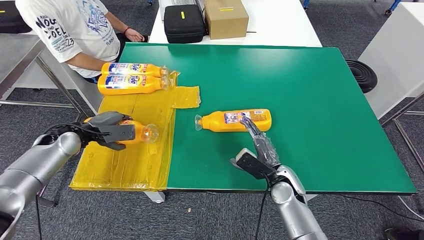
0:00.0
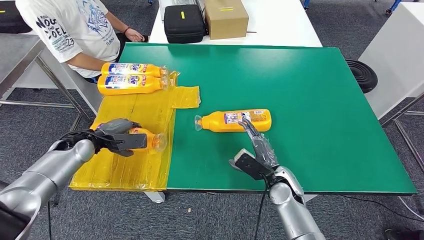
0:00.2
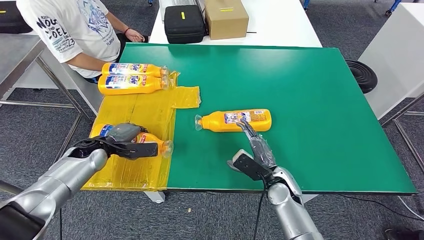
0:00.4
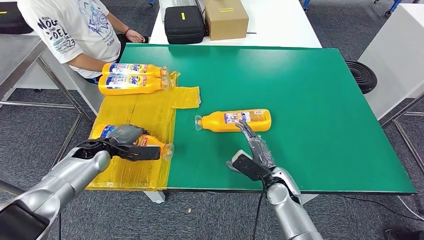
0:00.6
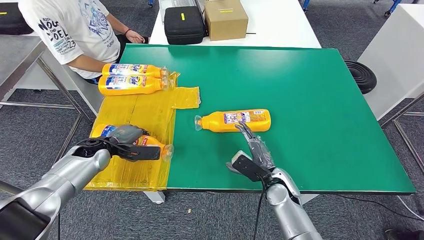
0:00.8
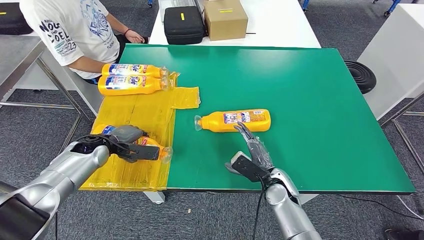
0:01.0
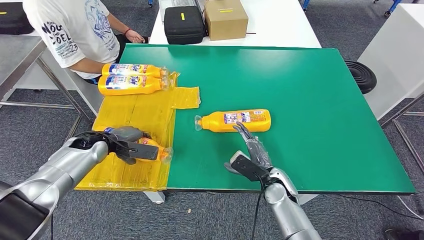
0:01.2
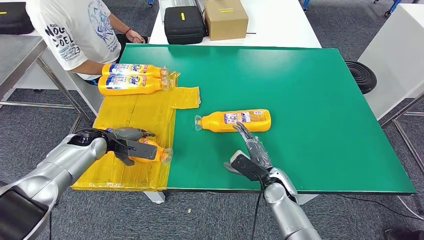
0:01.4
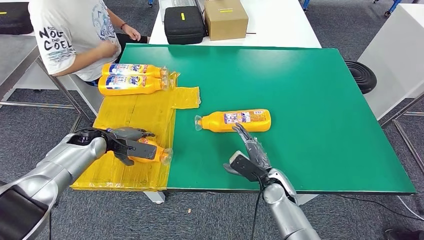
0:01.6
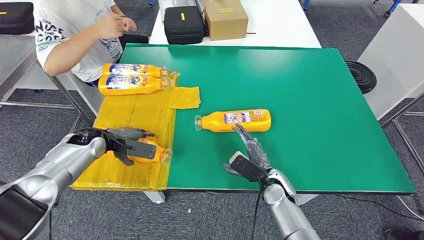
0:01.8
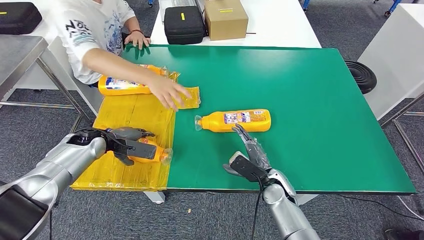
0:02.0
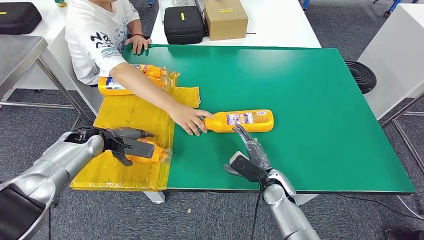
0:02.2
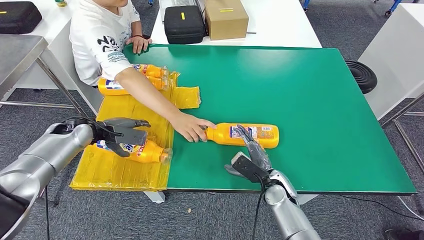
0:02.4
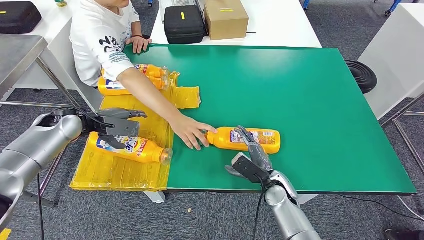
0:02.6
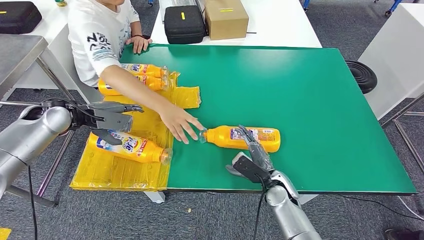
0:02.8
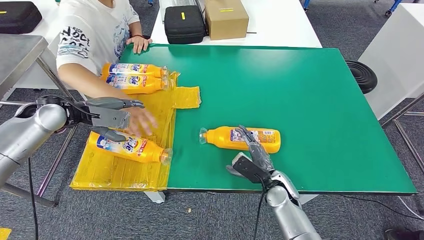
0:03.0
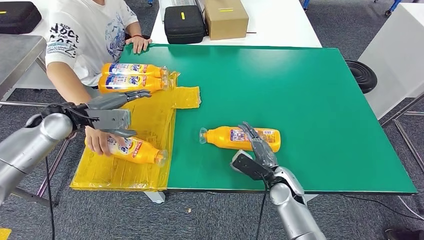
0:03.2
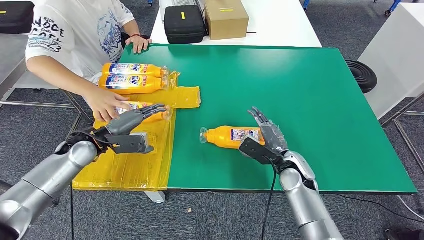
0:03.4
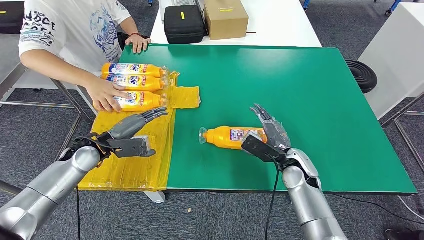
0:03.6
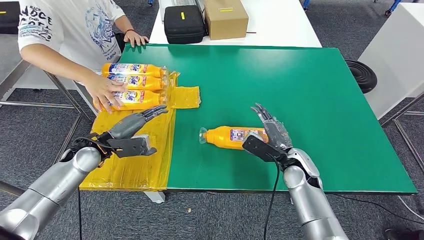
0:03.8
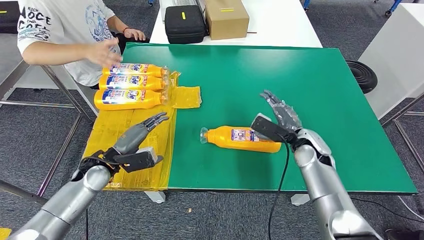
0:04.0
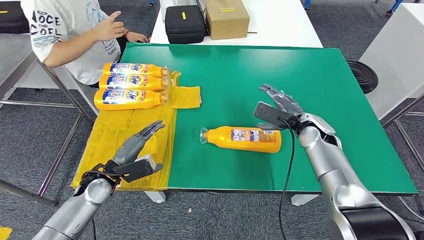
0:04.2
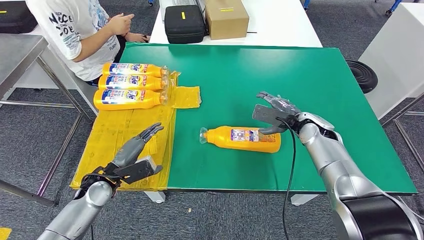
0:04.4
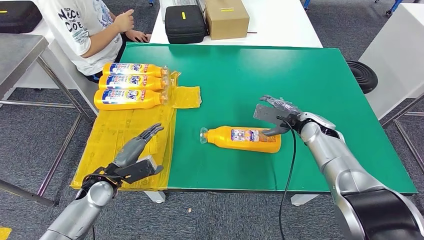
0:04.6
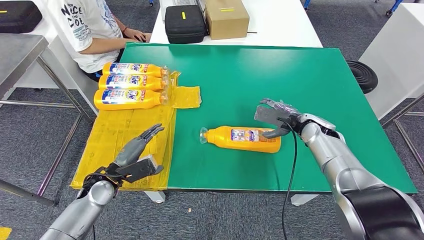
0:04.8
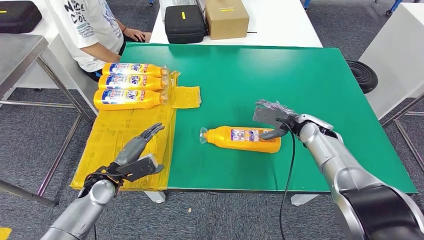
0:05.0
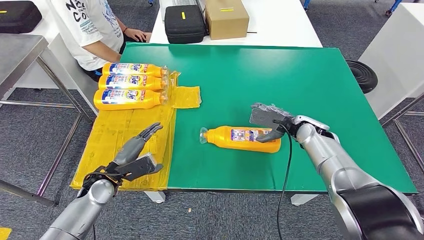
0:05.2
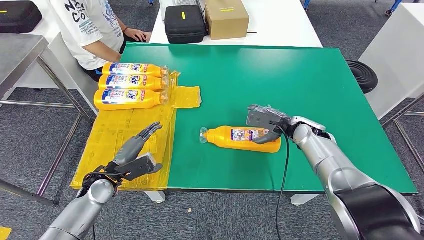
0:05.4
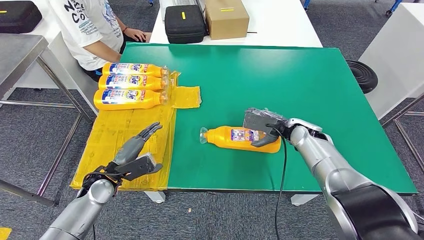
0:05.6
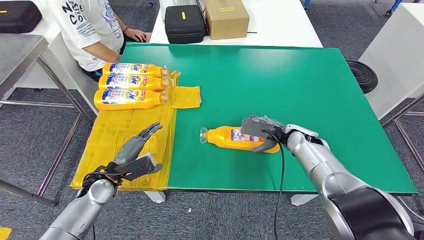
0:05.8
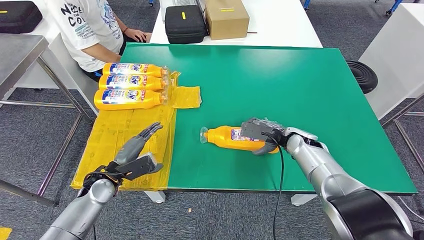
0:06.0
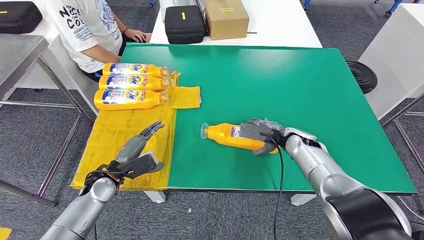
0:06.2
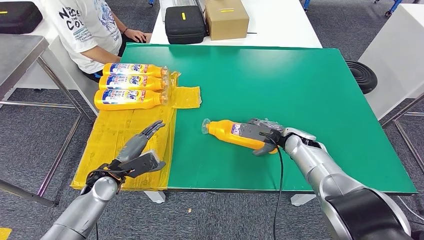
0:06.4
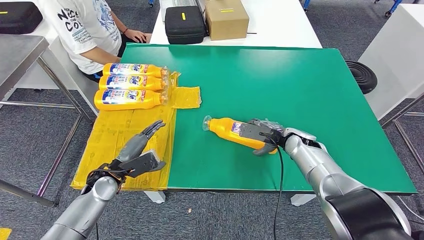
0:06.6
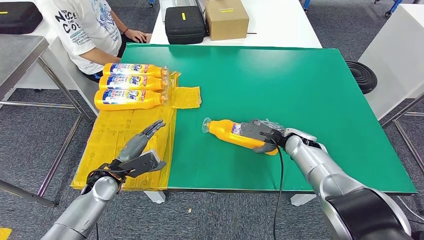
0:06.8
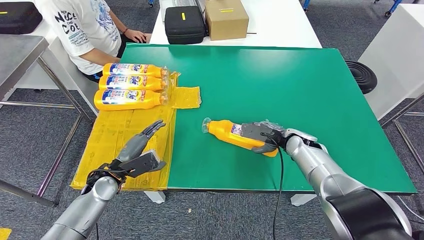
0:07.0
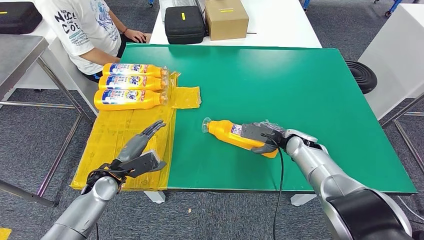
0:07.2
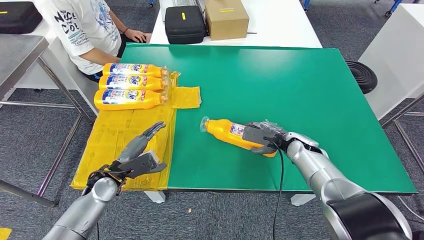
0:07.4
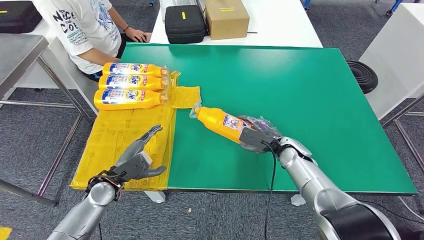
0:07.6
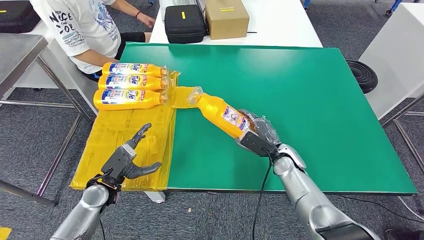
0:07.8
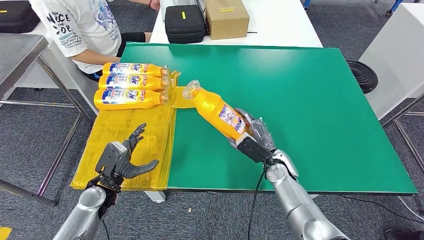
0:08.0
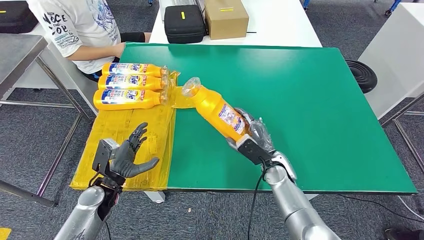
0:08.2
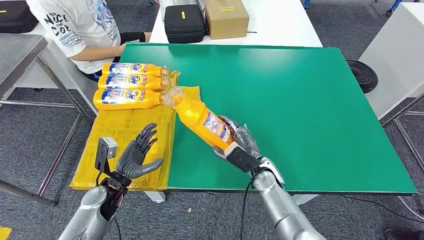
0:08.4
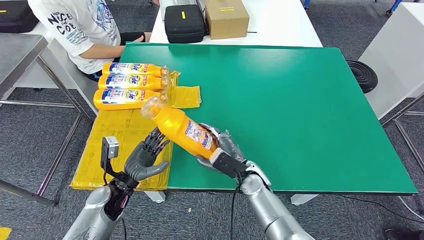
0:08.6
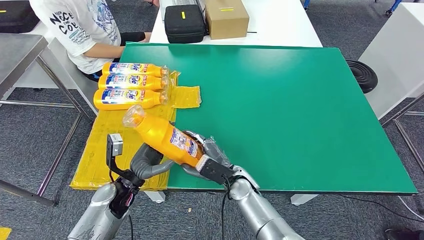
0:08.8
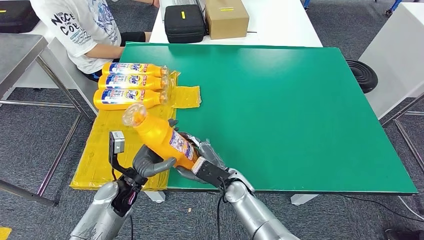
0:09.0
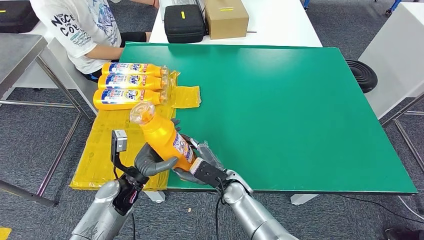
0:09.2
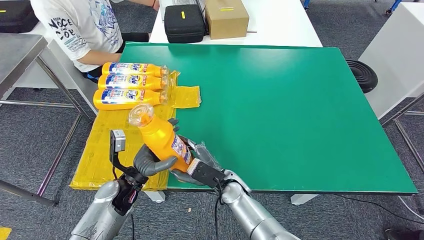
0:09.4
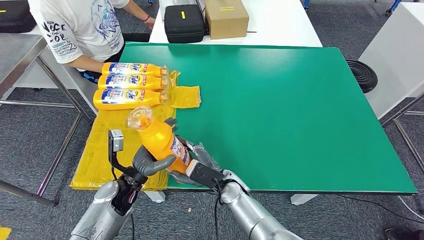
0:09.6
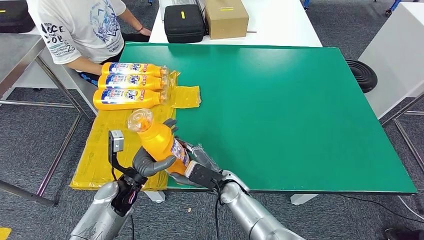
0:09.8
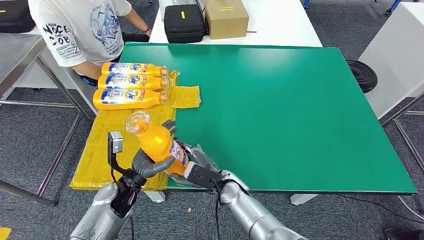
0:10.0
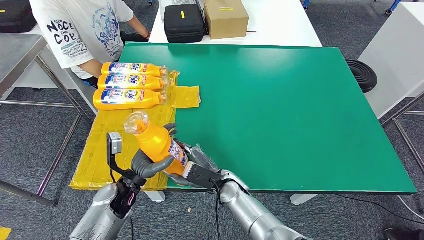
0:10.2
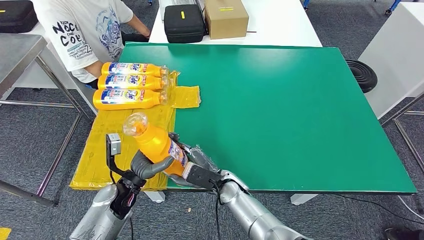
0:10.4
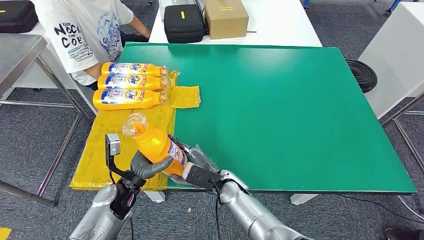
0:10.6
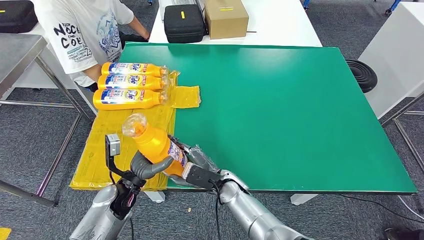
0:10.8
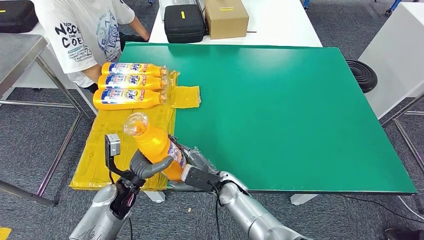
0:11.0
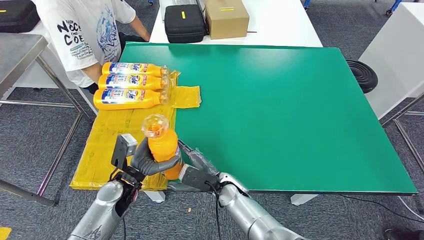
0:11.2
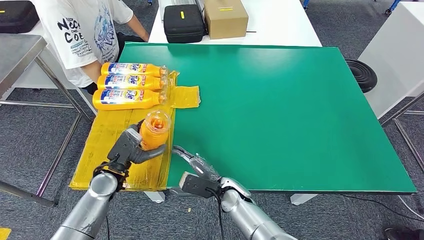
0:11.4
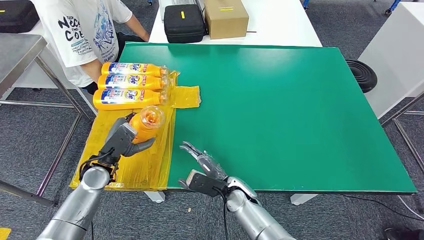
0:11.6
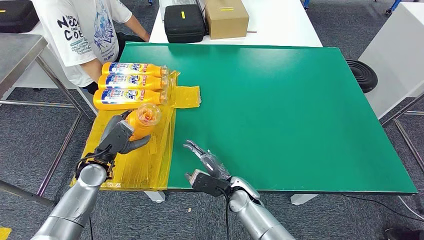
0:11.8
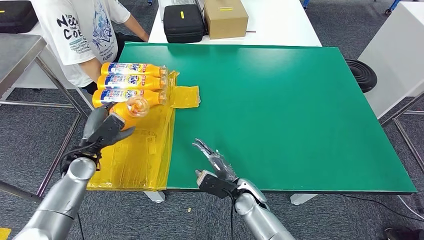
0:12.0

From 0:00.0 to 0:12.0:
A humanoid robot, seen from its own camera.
Step, from 0:01.8 to 0:09.2: Pick up the fast-moving consumer goods bottle from the table.
From 0:04.4 to 0:06.0: The right hand ends up approximately 5 cm from where it was.
From 0:07.6 to 0:09.0: The right hand travels to the left and backward by about 20 cm, while the left hand is displaced to the right by some 5 cm.
From 0:09.0 to 0:10.4: The hands move only a little.
From 0:10.4 to 0:12.0: The left hand shifts some 15 cm to the left and forward, while the right hand changes place by approximately 5 cm.

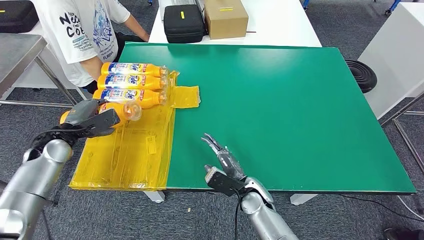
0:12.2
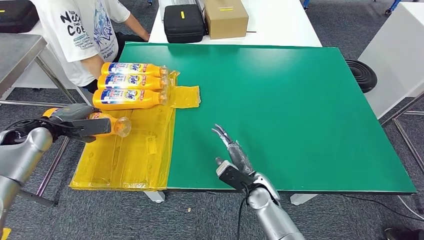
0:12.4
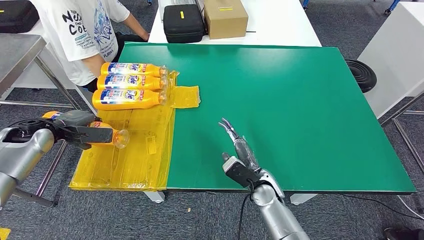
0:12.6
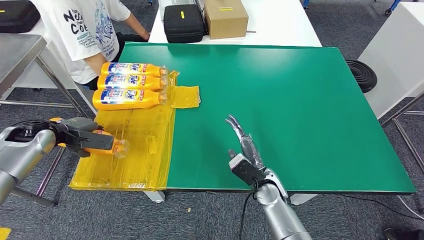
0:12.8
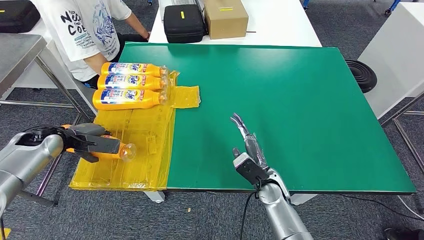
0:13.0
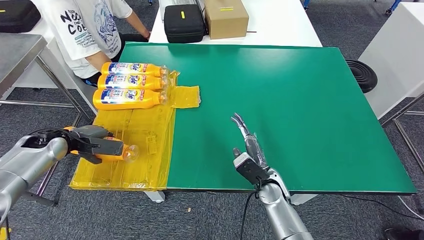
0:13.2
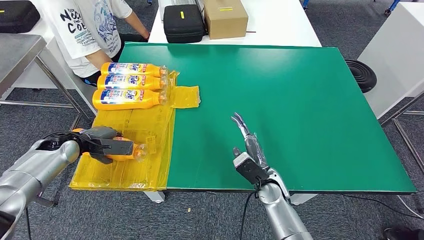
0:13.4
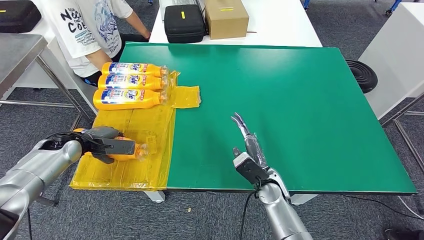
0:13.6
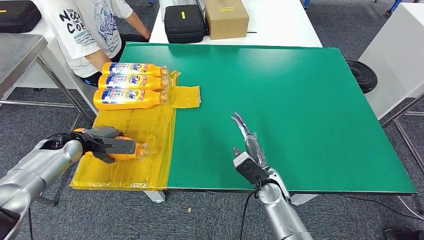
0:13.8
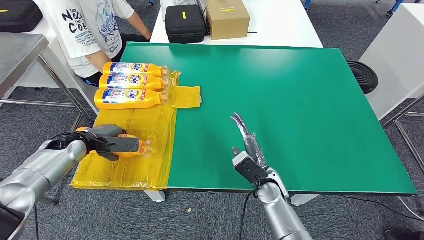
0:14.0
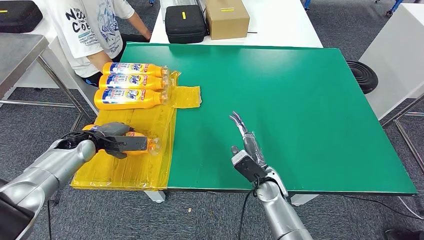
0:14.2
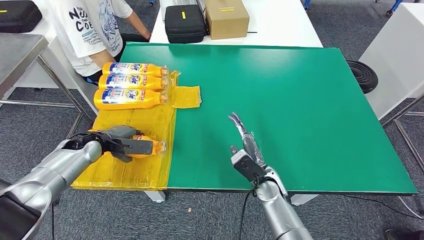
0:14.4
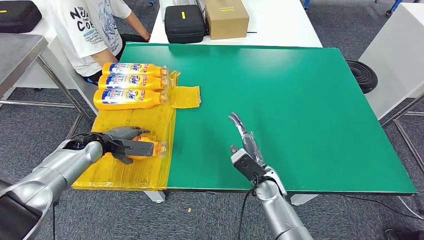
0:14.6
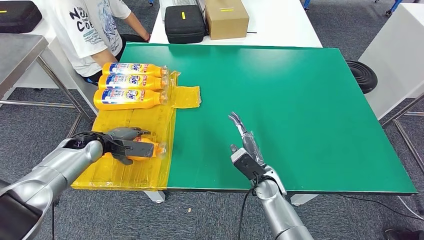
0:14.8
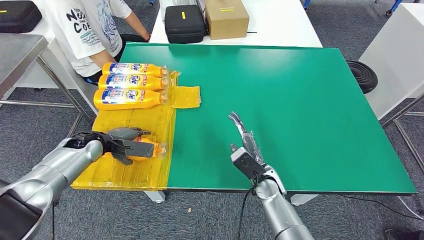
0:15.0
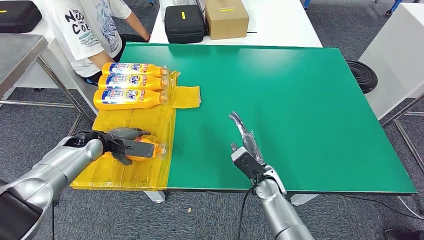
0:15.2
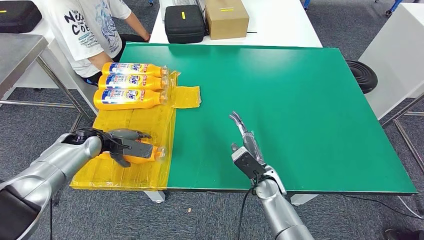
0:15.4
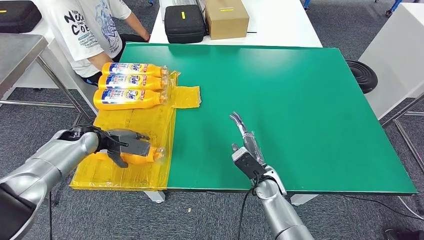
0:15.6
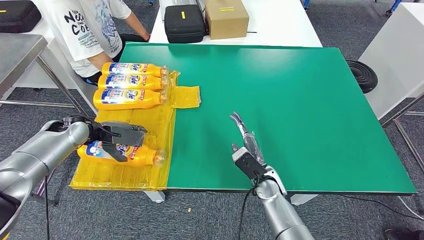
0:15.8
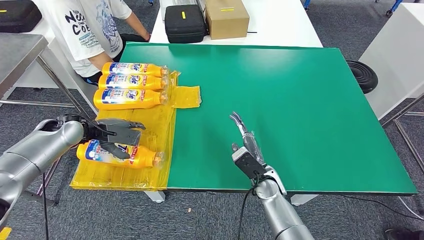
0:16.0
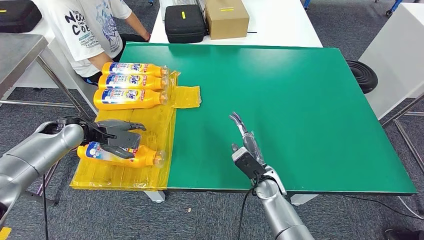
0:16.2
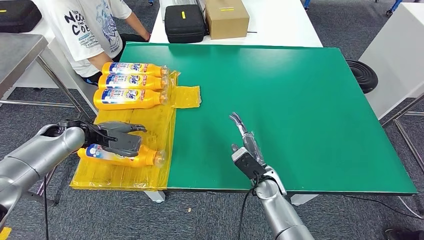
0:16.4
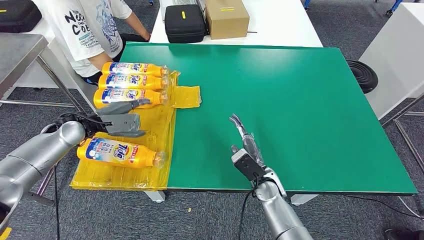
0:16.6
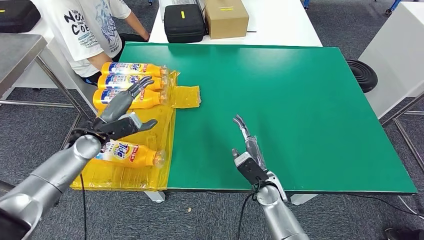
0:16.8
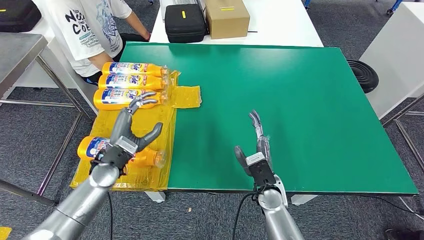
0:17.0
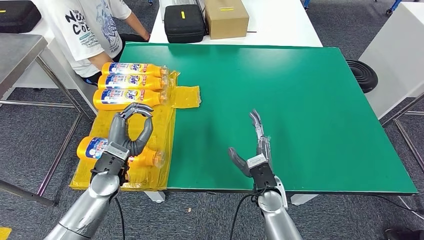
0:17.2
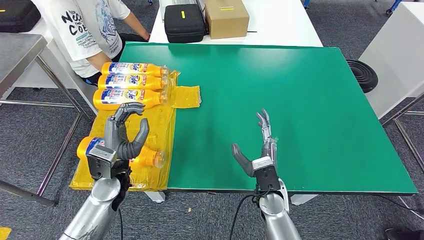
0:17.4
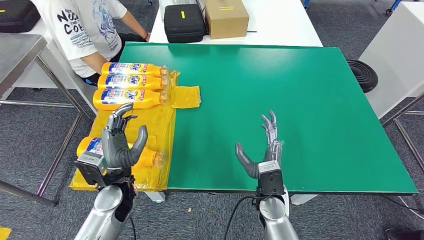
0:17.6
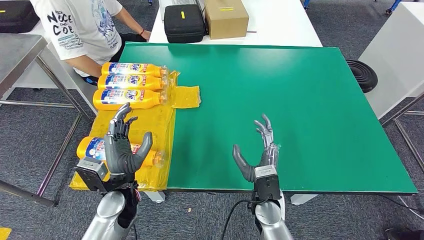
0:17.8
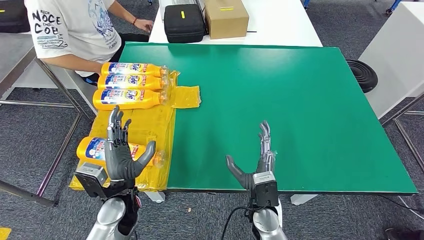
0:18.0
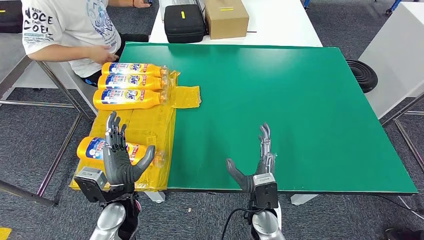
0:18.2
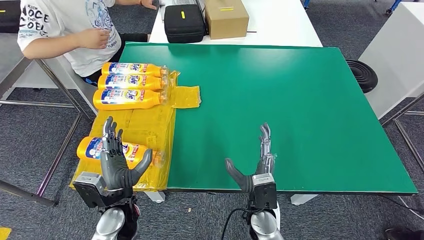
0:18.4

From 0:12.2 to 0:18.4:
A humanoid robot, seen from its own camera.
Step, from 0:12.2 to 0:18.4: Flip the fast-moving consumer goods bottle to the front side.
From 0:12.2 to 0:13.8: The right hand changes place by some 5 cm.
From 0:13.8 to 0:15.4: The left hand moves about 5 cm.
